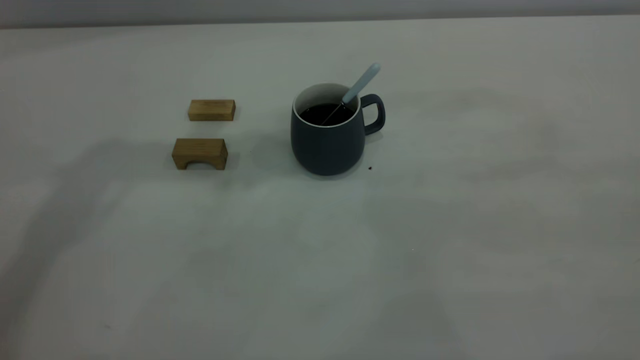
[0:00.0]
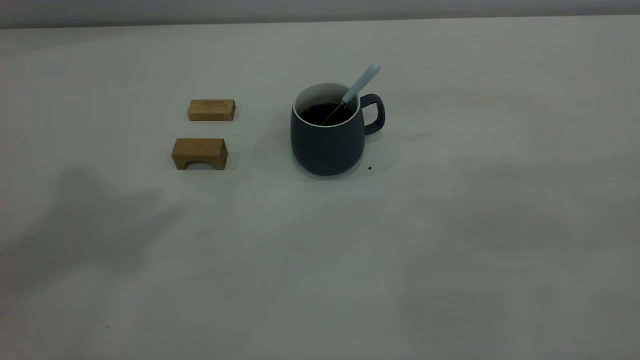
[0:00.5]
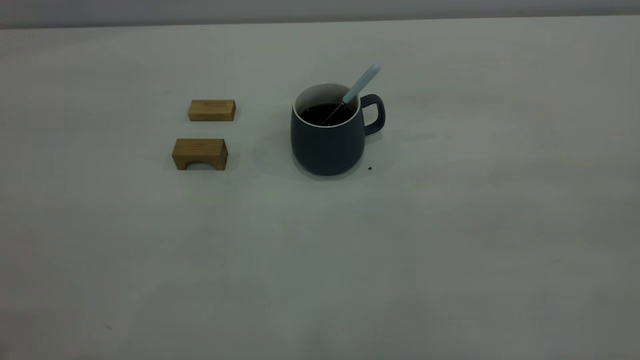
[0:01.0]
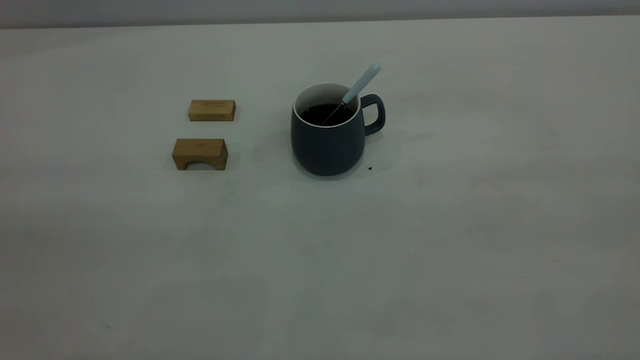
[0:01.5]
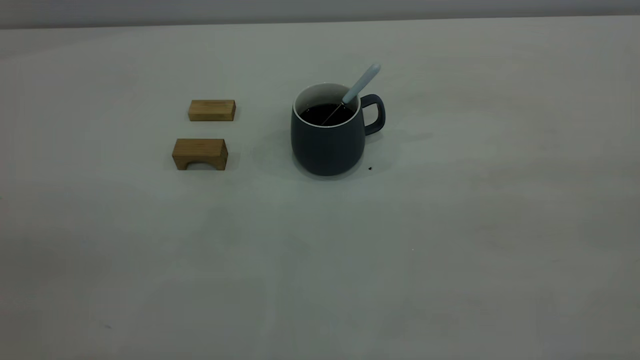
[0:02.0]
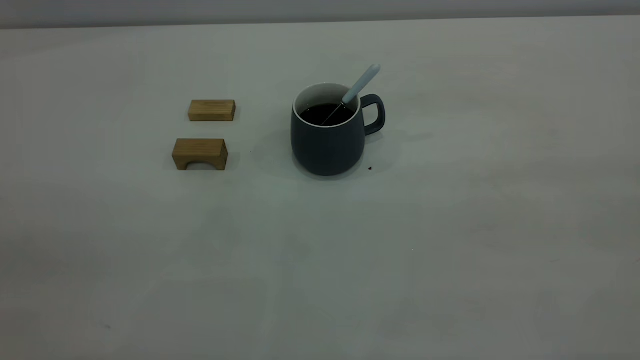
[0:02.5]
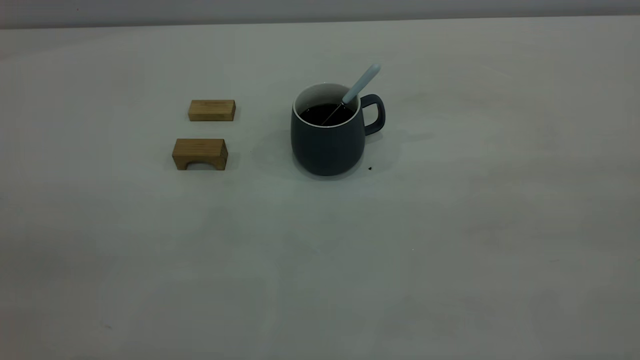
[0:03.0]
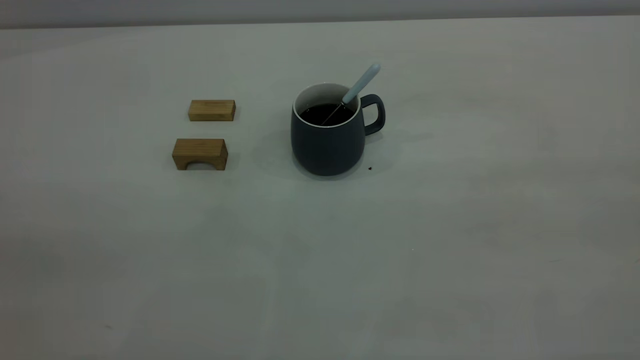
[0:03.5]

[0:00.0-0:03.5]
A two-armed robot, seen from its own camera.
0:02.0 to 0:03.5: The two grippers keep their place.

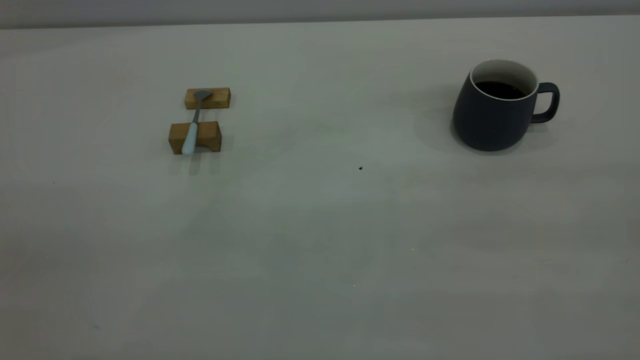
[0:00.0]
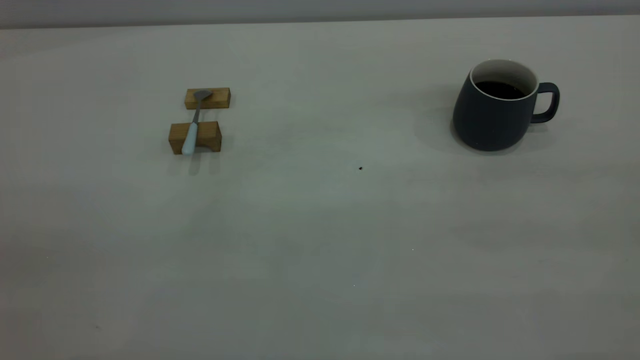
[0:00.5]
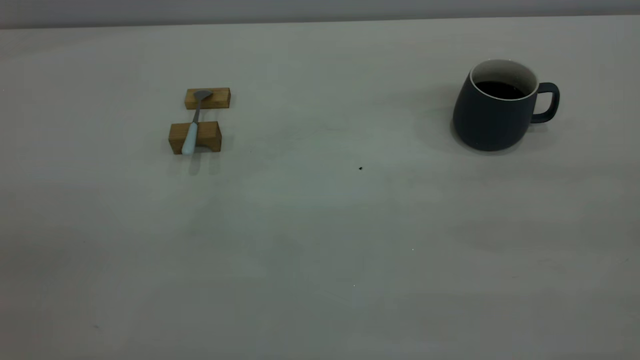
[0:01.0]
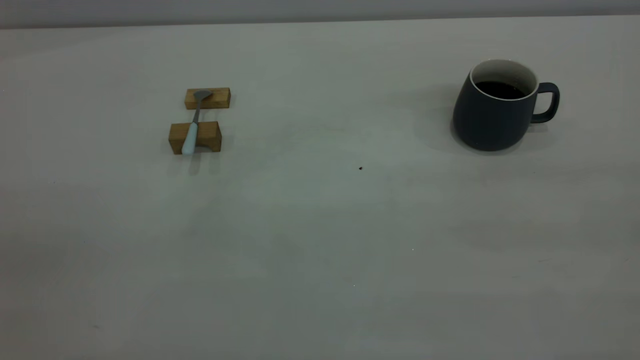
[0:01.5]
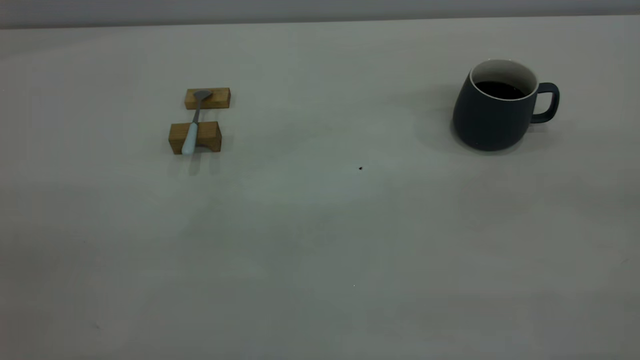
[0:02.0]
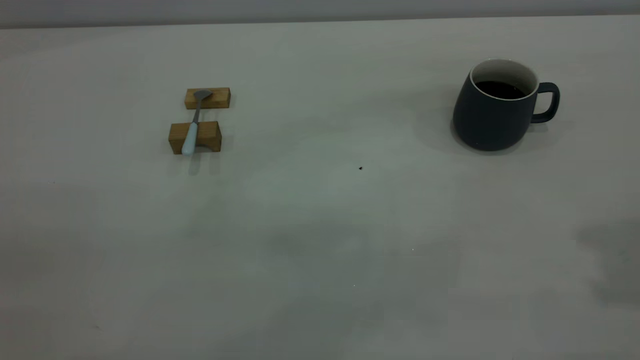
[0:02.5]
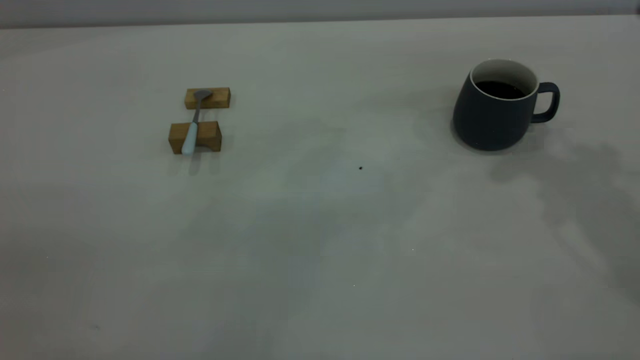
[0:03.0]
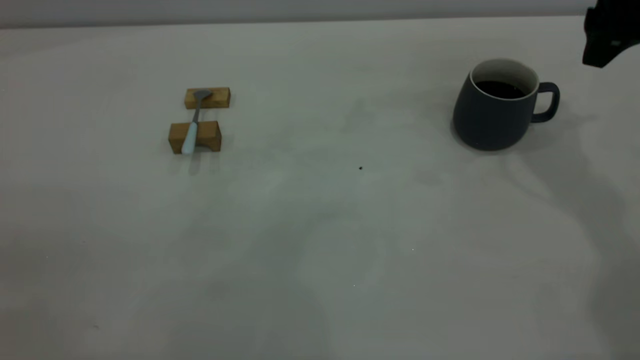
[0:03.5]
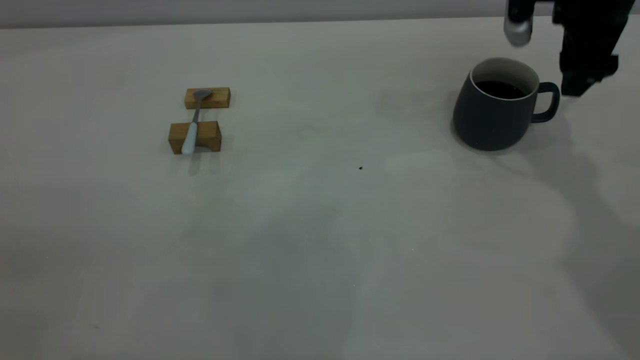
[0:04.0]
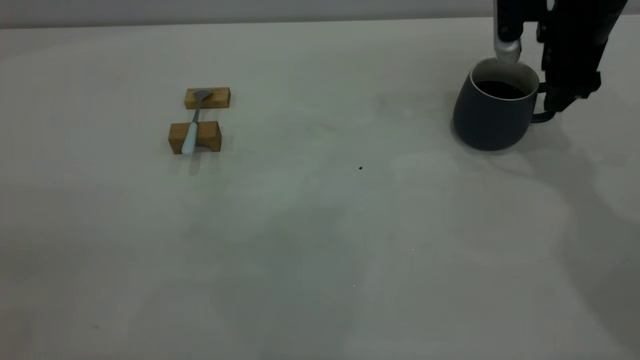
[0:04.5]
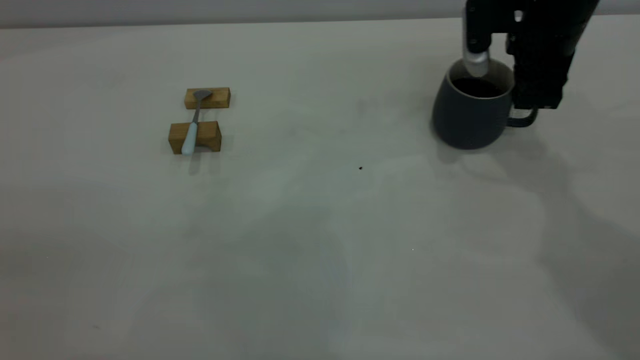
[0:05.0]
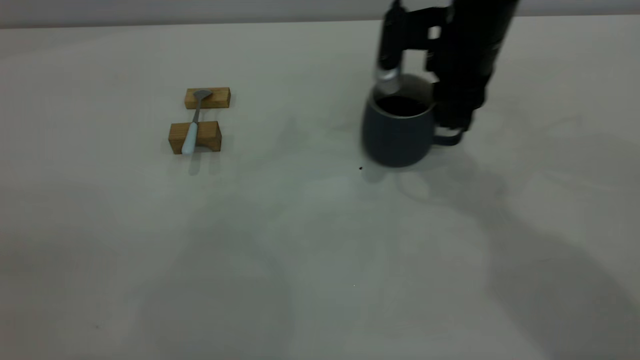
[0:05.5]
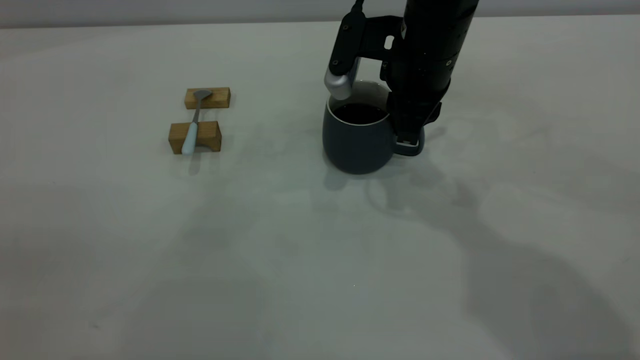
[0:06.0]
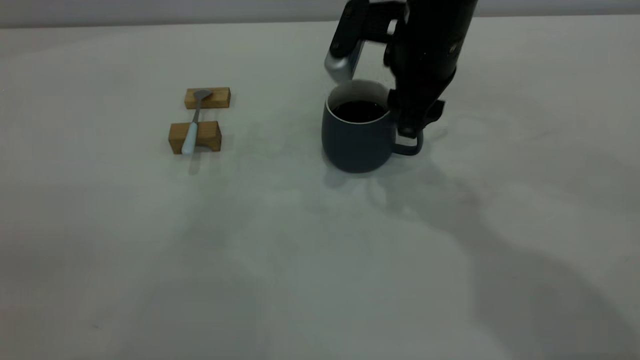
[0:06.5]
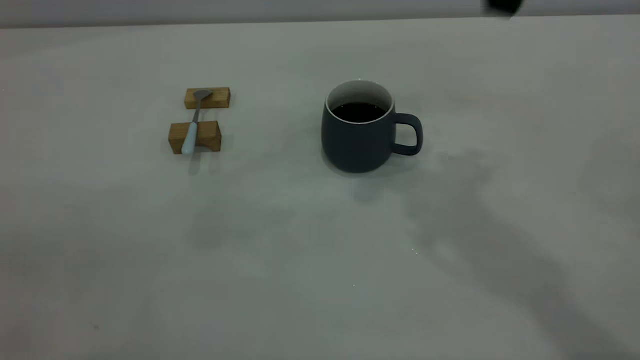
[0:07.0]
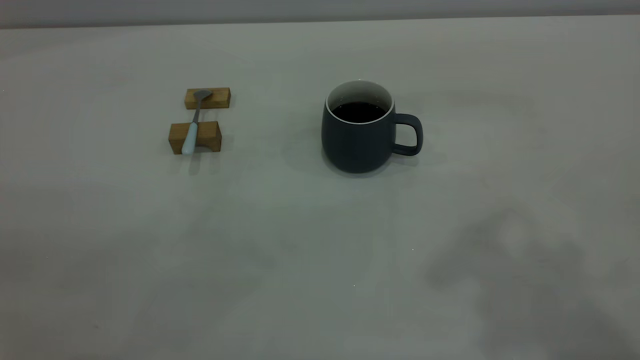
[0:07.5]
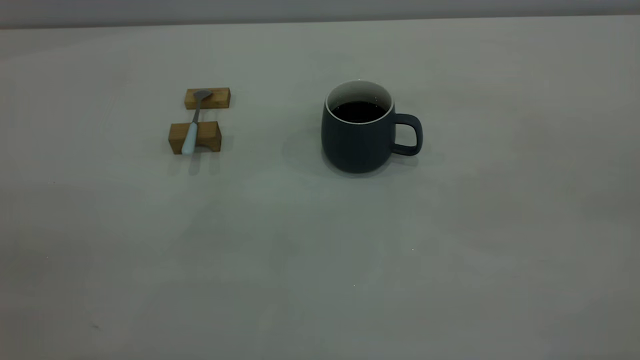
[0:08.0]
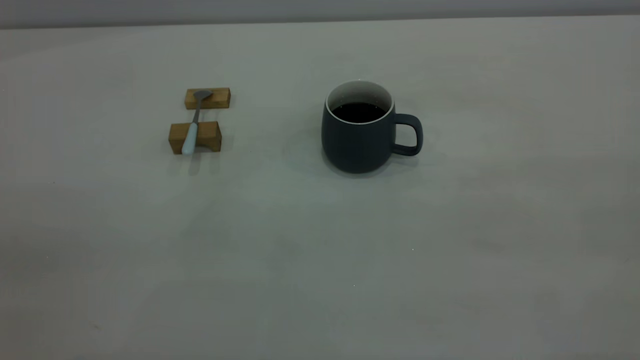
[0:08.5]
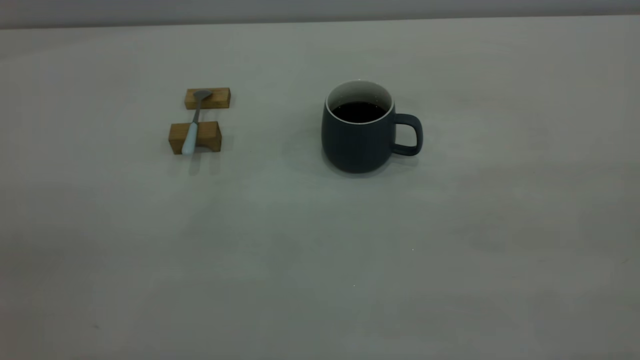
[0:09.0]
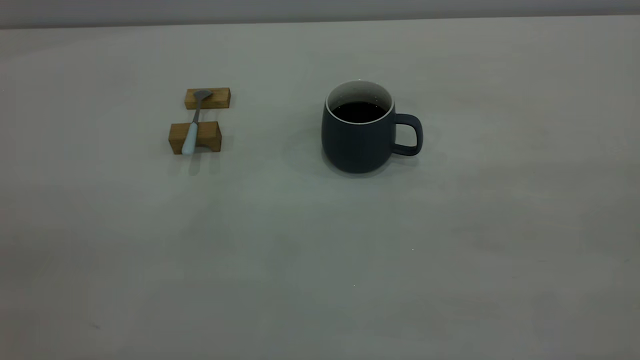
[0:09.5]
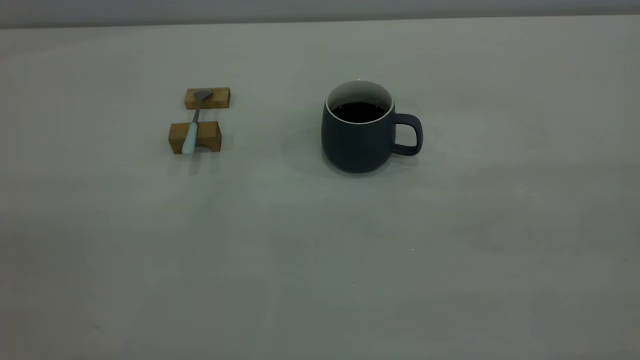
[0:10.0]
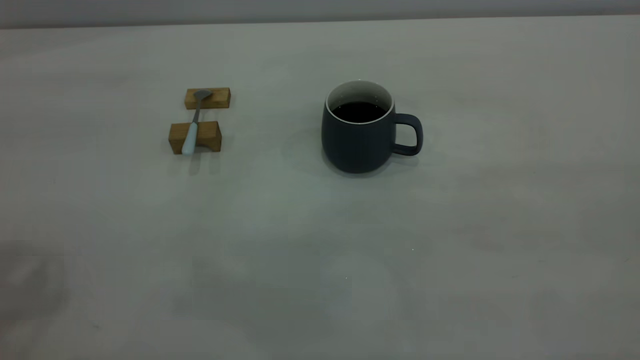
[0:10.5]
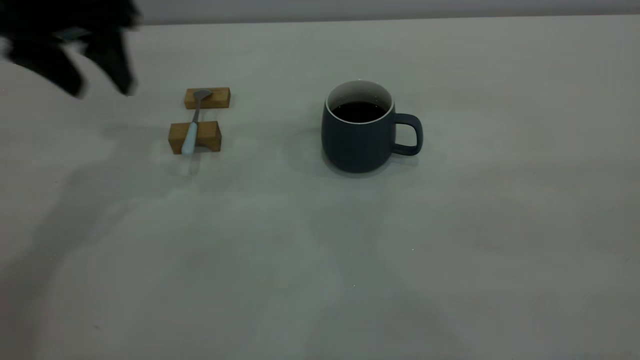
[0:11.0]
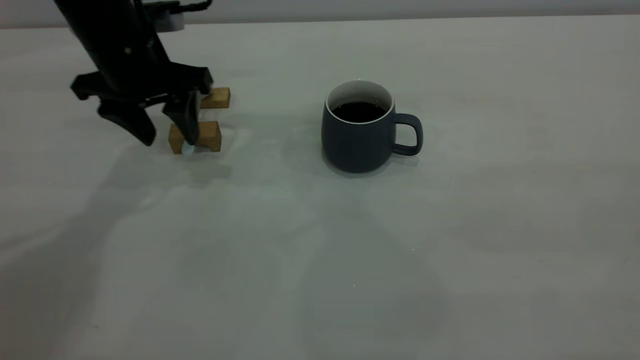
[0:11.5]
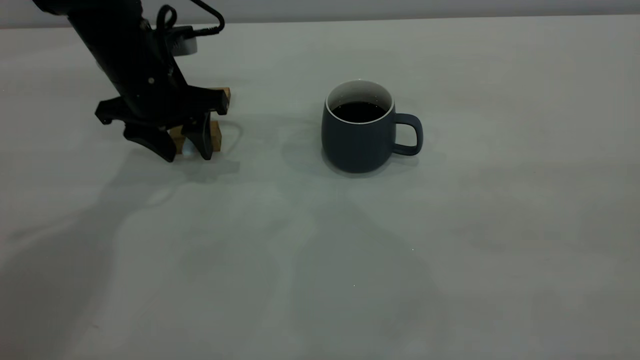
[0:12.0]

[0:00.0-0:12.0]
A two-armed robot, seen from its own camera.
Step, 0:00.0 to 0:06.5: Move the cup with coffee to the center of view.
0:02.0 to 0:04.0: The right gripper goes about 50 cm forward and downward, and opens up.
0:04.0 to 0:06.0: The right gripper goes some 20 cm to the left, and closes its fingers.
0:06.0 to 0:08.0: The right gripper travels backward, upward and to the right by some 50 cm, and opens up.
0:10.0 to 0:12.0: The left gripper travels forward and downward by some 50 cm.

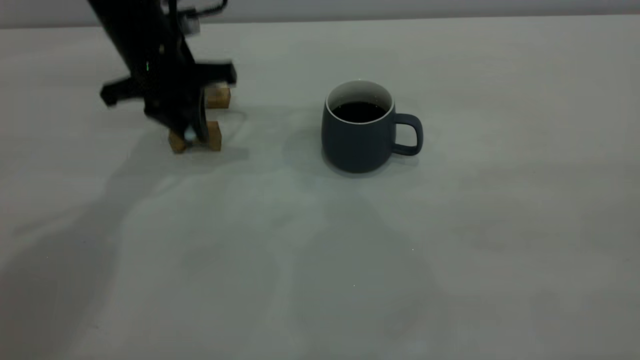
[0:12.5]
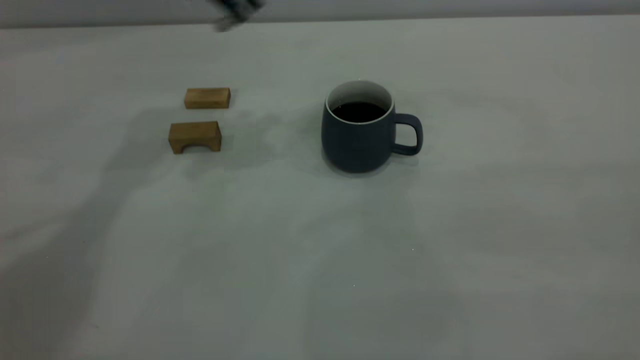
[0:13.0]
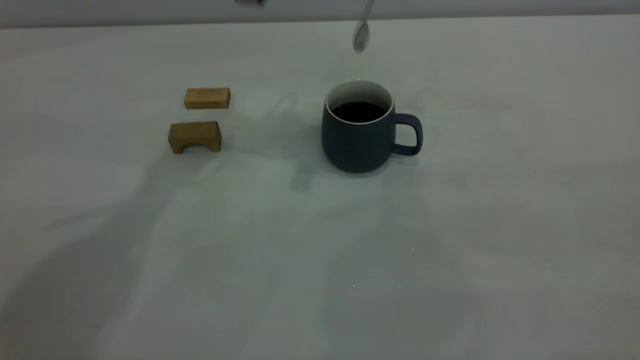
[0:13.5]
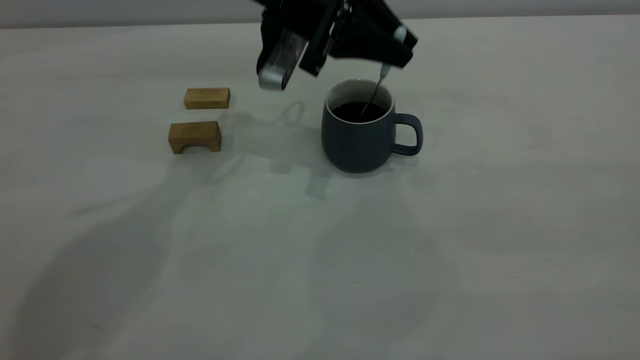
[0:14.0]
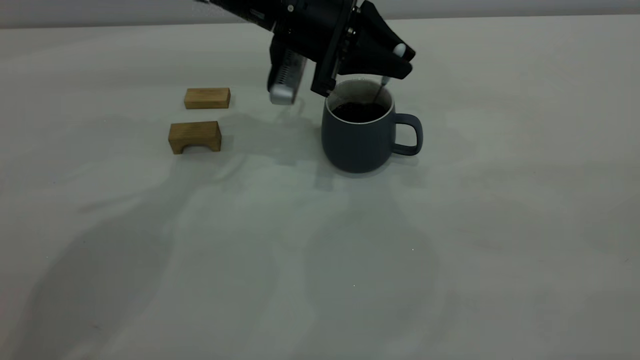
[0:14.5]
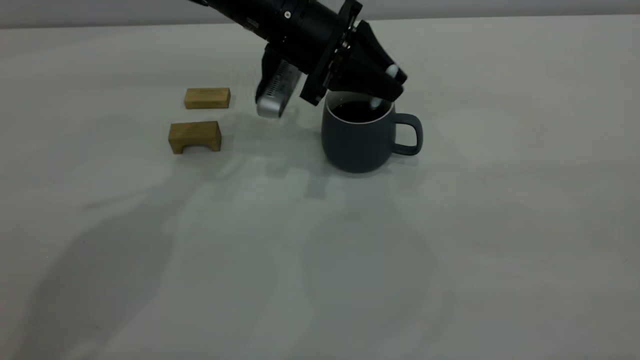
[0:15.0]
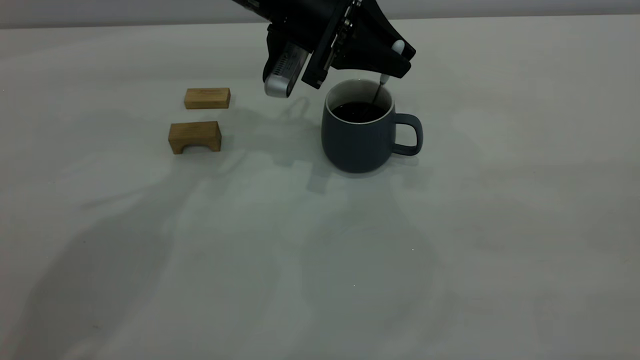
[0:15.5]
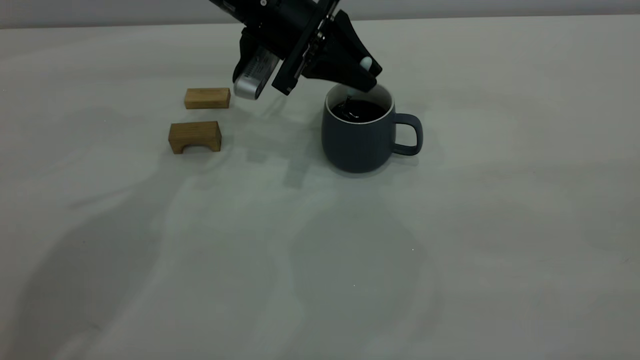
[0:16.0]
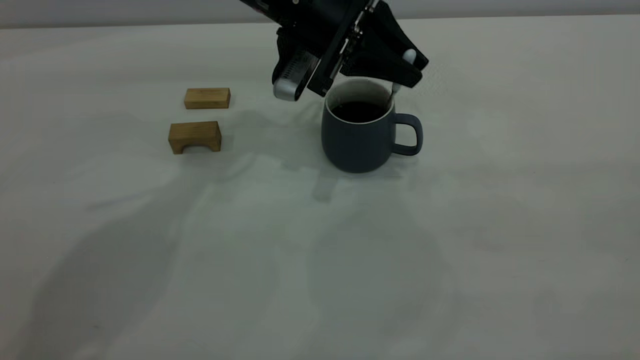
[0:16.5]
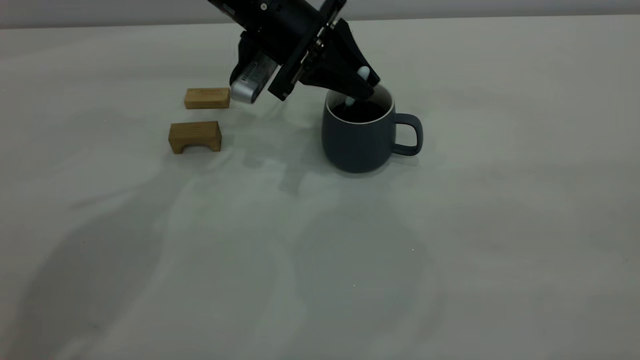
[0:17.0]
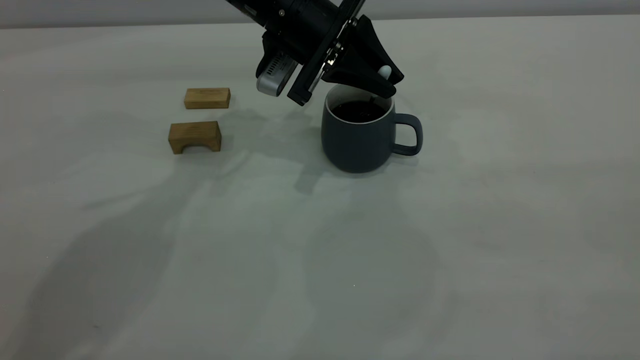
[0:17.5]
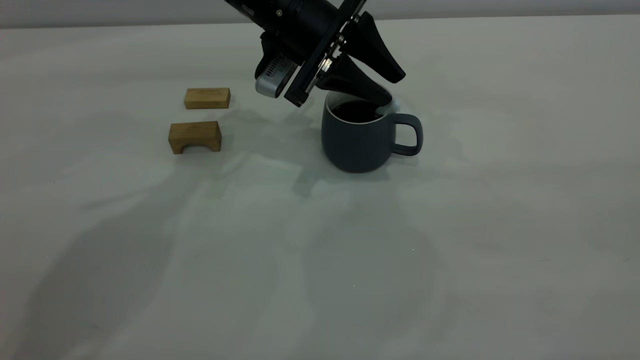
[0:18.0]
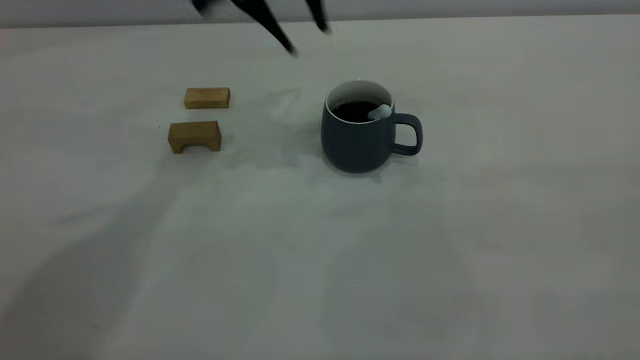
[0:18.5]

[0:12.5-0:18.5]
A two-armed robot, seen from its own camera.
Step, 0:13.0 to 0:18.0: Stir the coffee in the cup.
0:12.5 to 0:14.5: The left gripper heads to the right, covering roughly 15 cm, and travels upward and back again, some 15 cm each way.
0:14.5 to 0:16.5: There are only small adjustments of the grippers.
0:16.5 to 0:18.5: The left gripper heads upward and to the left, covering approximately 10 cm, and opens up.
